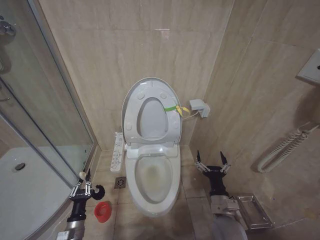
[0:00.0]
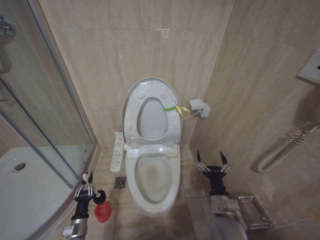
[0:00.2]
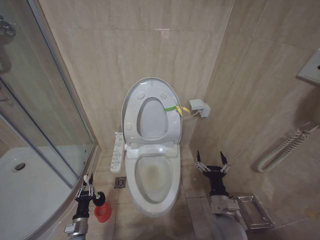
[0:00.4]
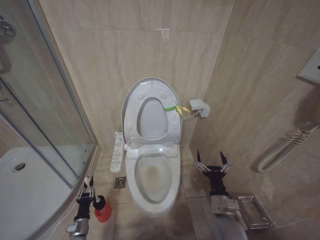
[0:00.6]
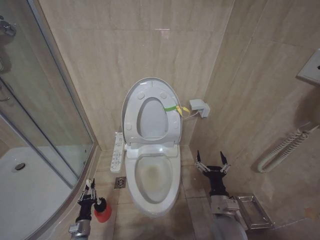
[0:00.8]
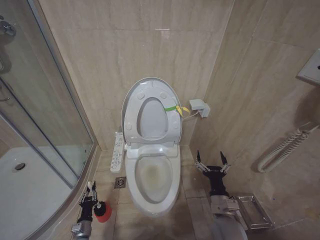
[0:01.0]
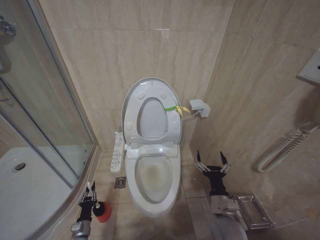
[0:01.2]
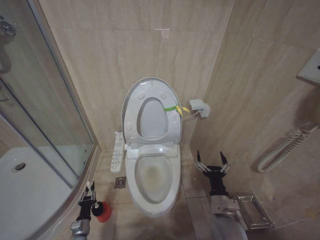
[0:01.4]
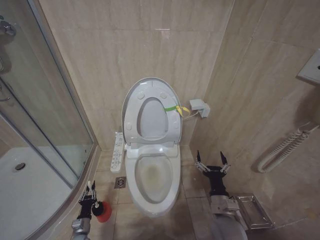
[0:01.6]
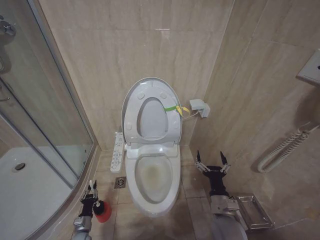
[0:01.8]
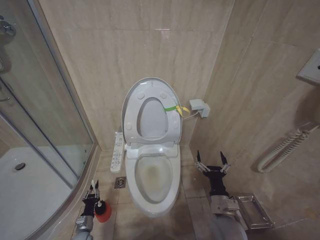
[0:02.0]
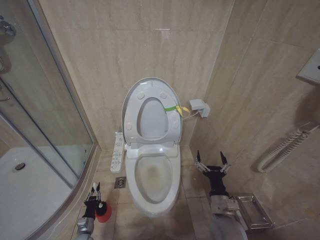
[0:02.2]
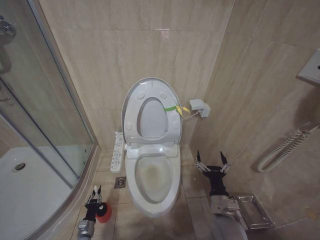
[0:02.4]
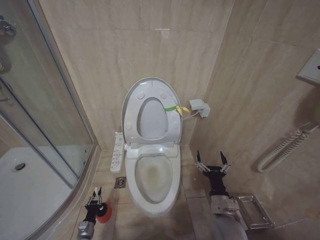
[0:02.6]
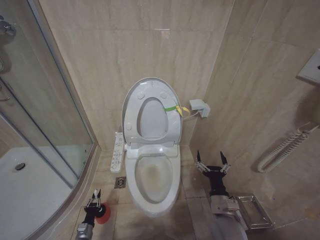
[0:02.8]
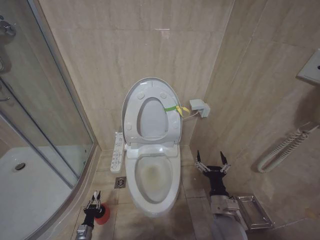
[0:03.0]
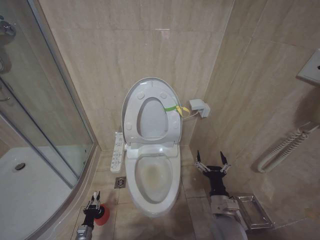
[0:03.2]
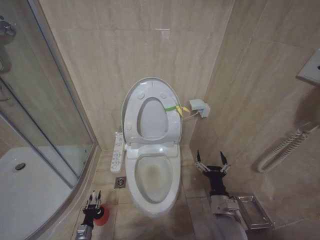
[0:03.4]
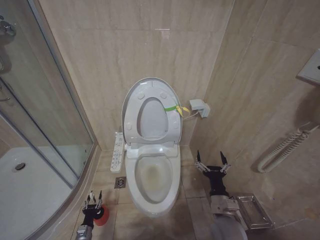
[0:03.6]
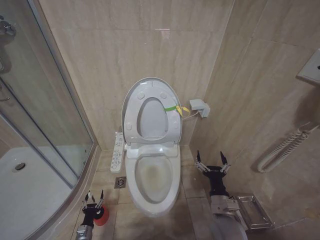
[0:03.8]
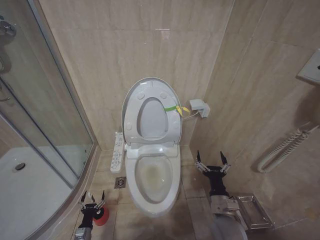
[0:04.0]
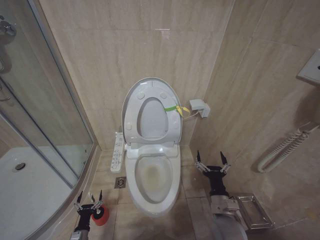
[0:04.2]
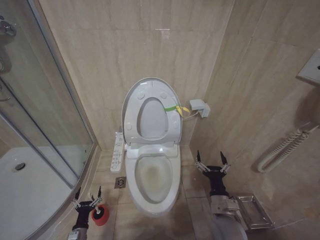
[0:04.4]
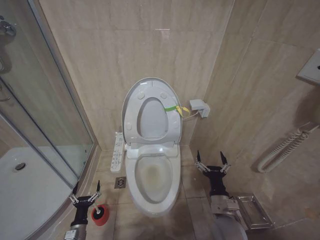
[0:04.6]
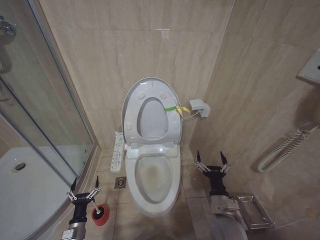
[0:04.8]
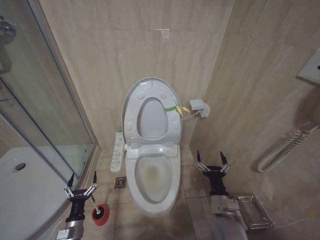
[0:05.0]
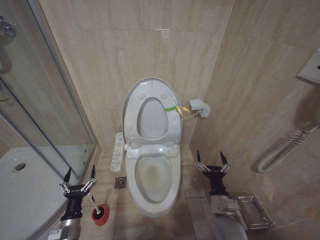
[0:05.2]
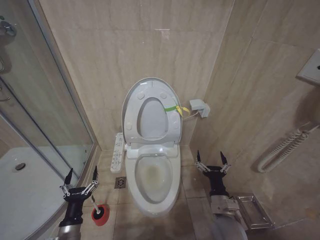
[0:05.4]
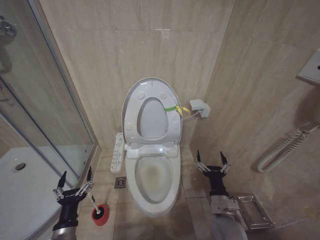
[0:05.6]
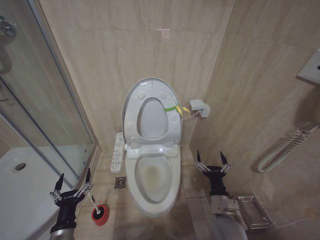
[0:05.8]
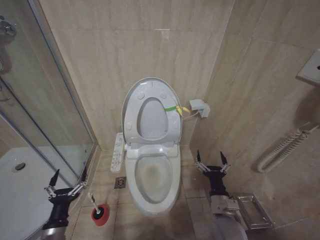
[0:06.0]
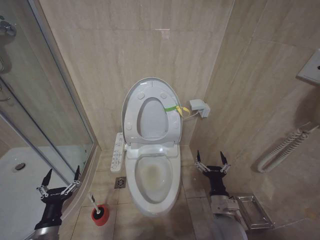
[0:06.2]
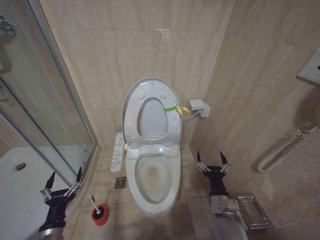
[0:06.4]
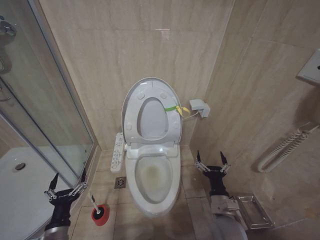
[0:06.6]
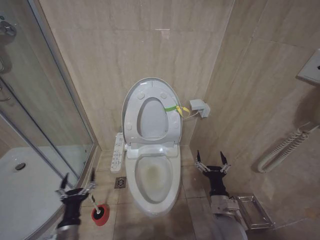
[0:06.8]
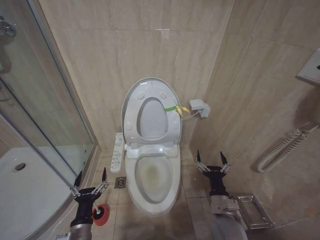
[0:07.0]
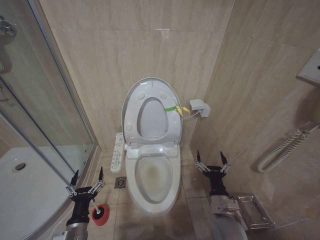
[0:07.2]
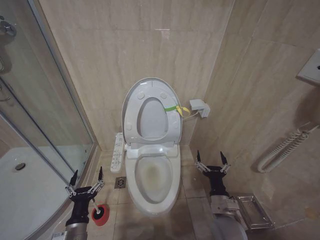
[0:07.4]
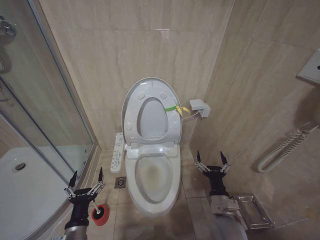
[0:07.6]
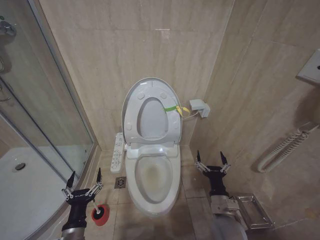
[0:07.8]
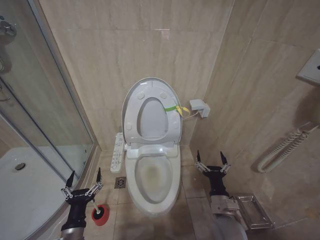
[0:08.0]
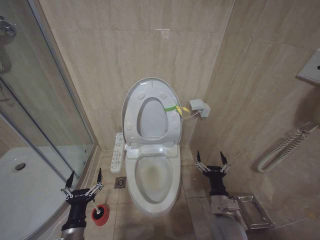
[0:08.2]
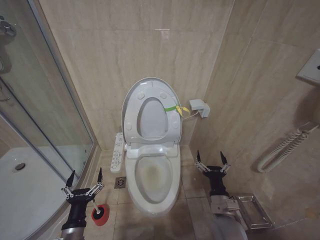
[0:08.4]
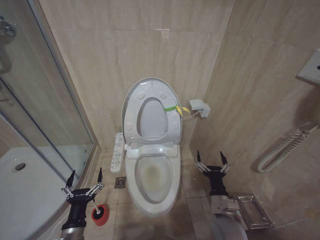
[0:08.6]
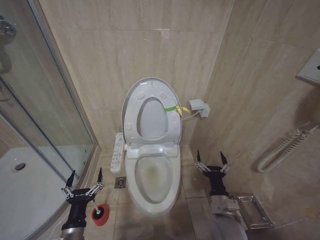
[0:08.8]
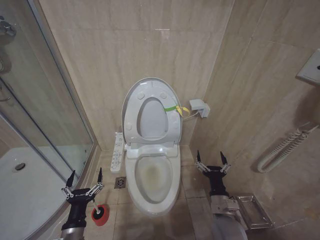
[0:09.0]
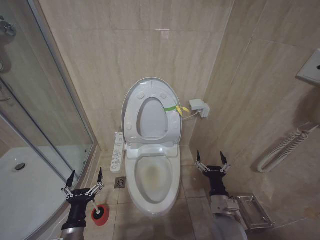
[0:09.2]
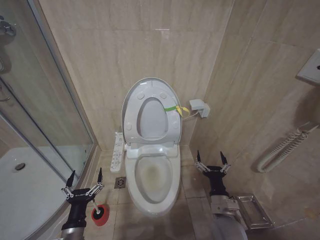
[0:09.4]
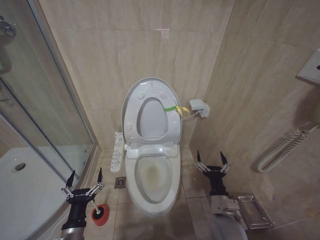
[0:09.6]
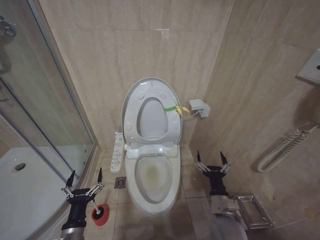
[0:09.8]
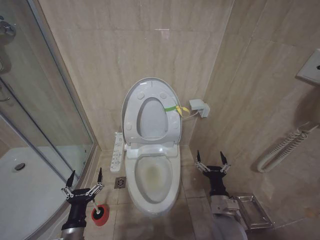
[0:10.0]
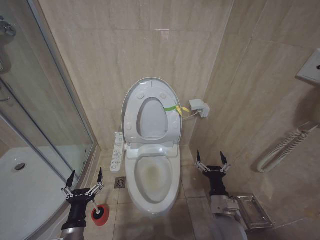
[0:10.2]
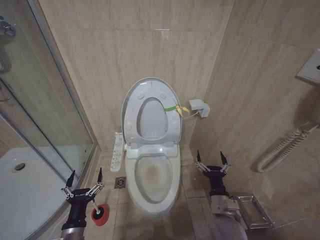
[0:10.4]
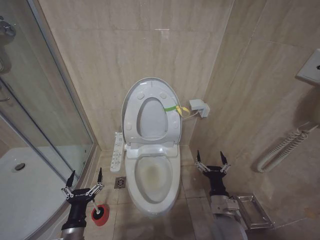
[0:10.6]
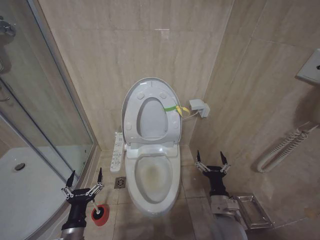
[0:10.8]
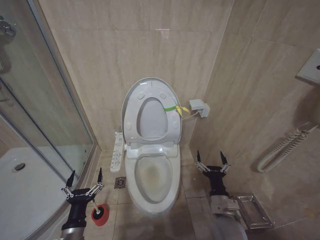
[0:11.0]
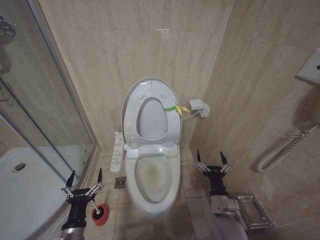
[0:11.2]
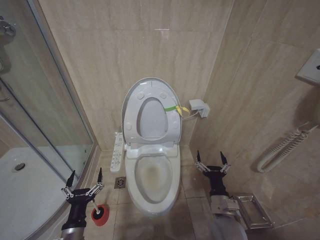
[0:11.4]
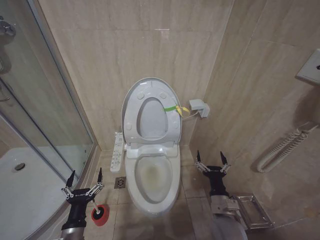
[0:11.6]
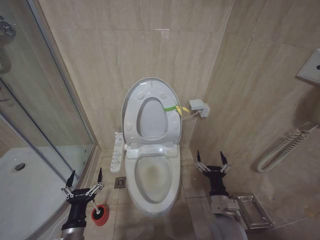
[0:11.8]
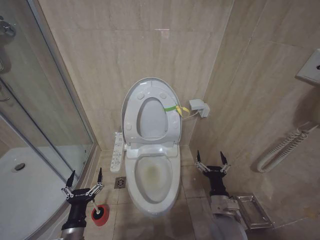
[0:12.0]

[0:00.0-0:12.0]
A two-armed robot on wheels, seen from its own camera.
Task of the whole recording: Open the toilet lid, clean the toilet bowl with a toilet brush, close the toilet lid, and flush.
0:00.0 to 0:01.6: The left gripper travels downward by approximately 15 cm.
0:01.6 to 0:03.0: The grippers make only small movements.
0:03.0 to 0:04.4: The left gripper ends up some 5 cm from where it was, and opens.
0:04.4 to 0:06.0: The left gripper is displaced upward by approximately 25 cm.
0:06.0 to 0:07.6: The left gripper is displaced to the right by approximately 5 cm.
0:07.6 to 0:12.0: Both grippers stay about where they are.

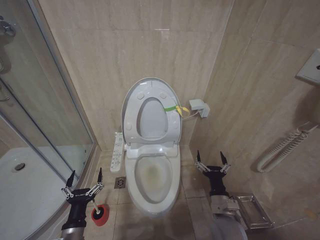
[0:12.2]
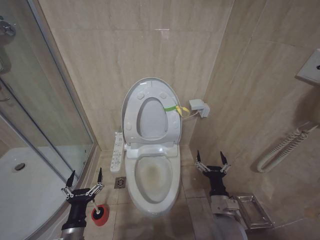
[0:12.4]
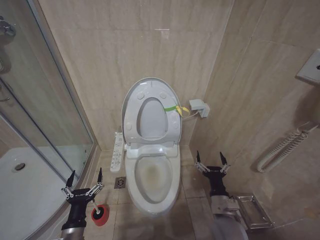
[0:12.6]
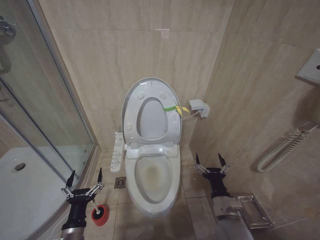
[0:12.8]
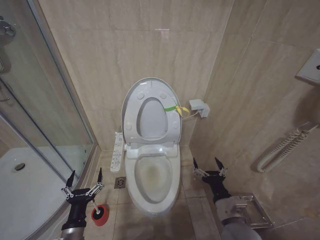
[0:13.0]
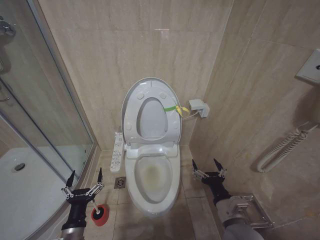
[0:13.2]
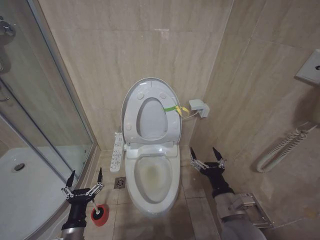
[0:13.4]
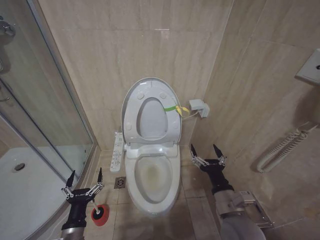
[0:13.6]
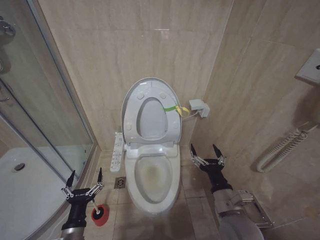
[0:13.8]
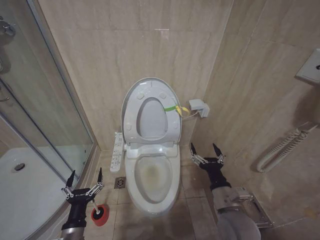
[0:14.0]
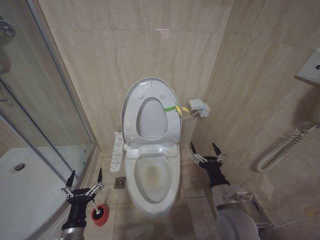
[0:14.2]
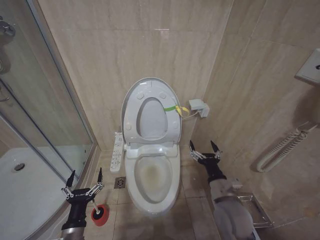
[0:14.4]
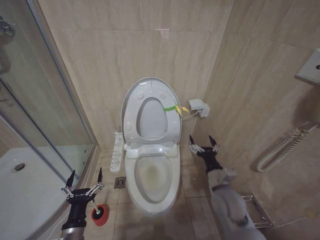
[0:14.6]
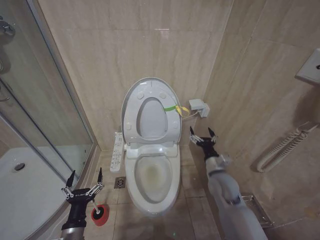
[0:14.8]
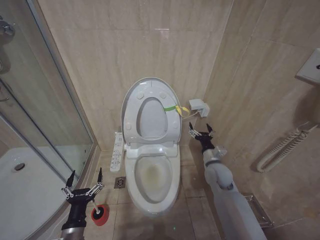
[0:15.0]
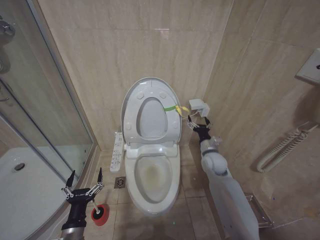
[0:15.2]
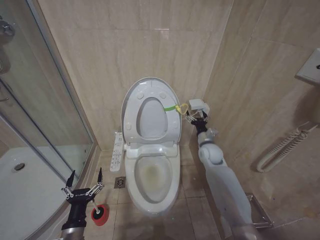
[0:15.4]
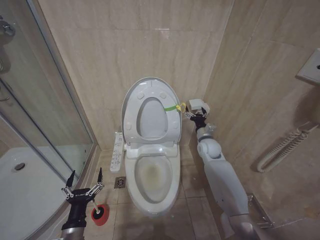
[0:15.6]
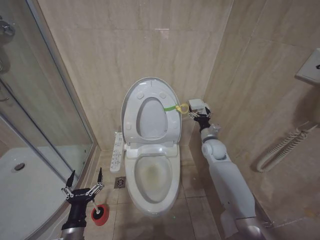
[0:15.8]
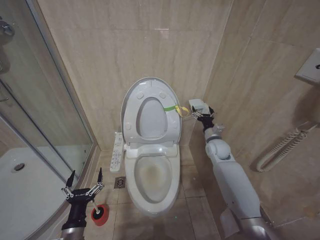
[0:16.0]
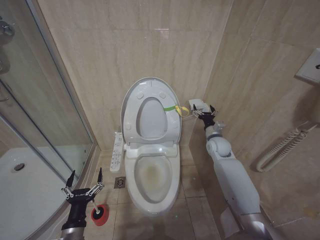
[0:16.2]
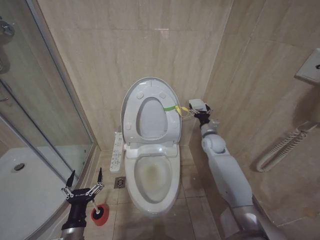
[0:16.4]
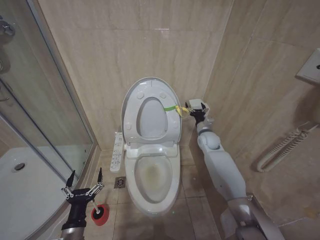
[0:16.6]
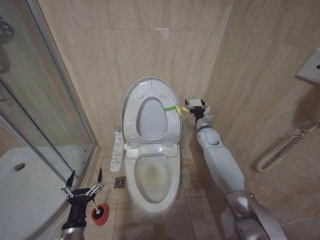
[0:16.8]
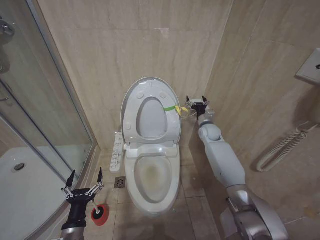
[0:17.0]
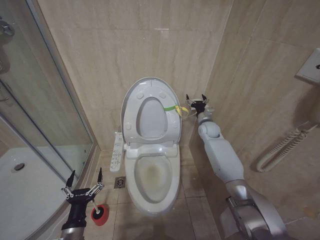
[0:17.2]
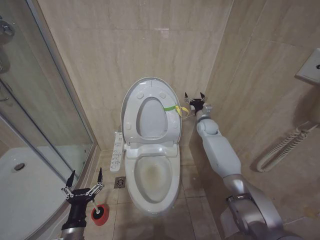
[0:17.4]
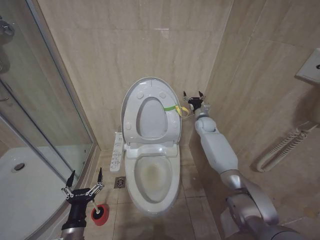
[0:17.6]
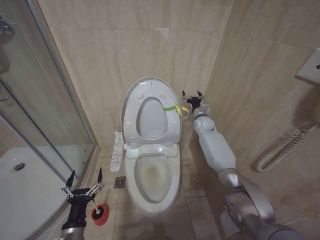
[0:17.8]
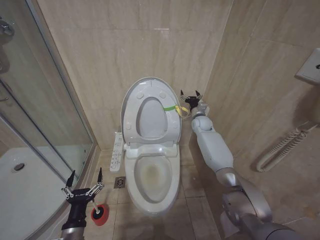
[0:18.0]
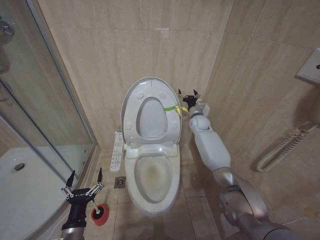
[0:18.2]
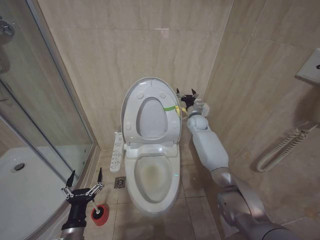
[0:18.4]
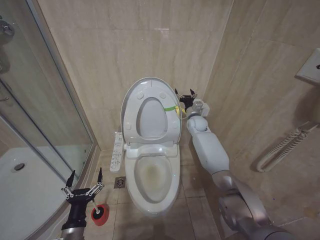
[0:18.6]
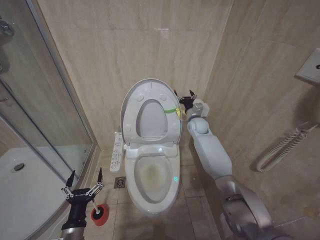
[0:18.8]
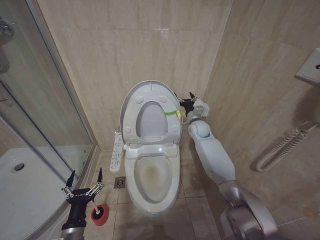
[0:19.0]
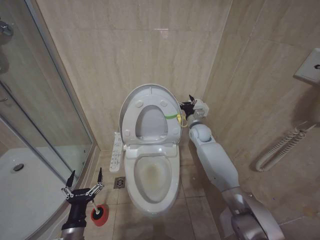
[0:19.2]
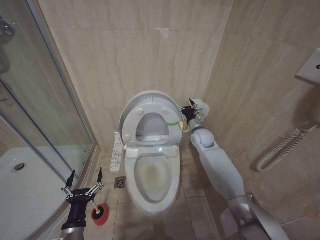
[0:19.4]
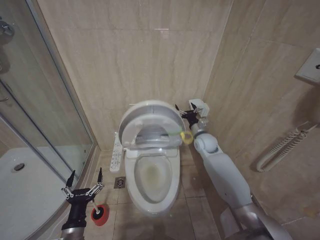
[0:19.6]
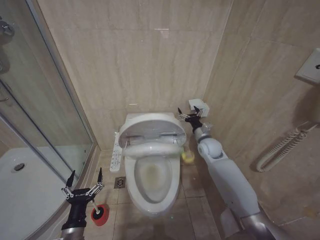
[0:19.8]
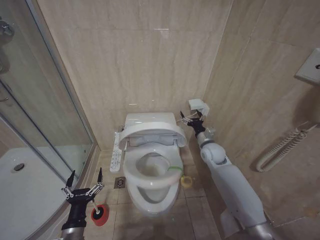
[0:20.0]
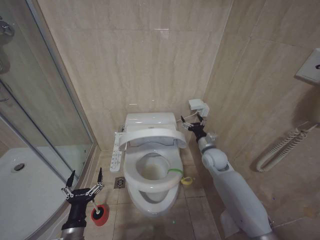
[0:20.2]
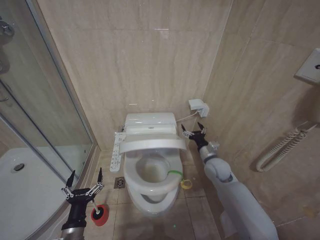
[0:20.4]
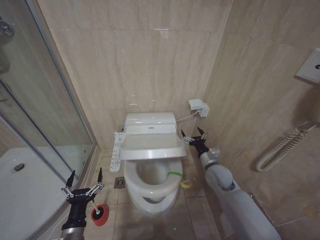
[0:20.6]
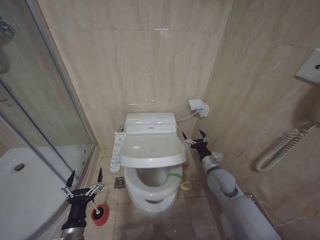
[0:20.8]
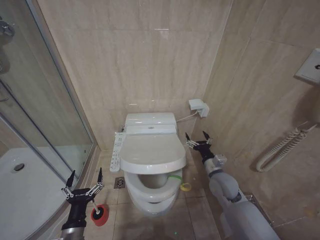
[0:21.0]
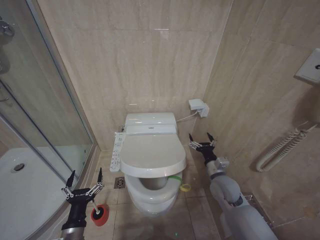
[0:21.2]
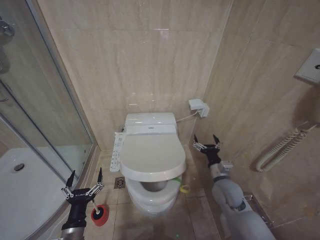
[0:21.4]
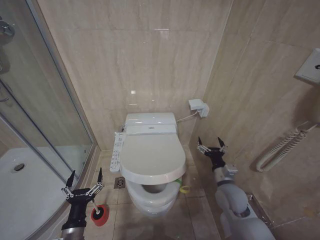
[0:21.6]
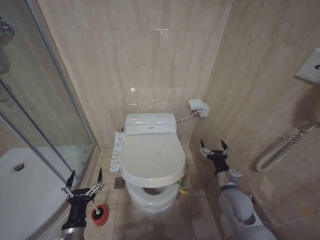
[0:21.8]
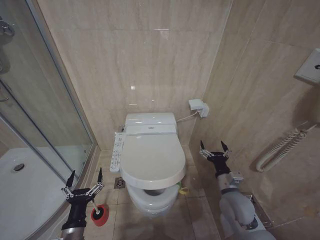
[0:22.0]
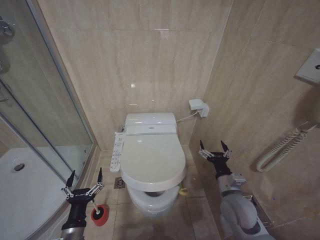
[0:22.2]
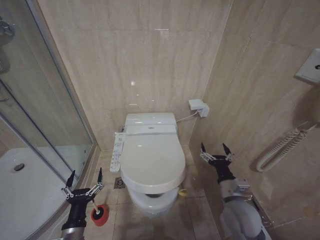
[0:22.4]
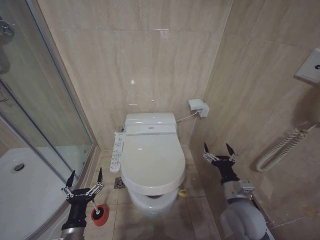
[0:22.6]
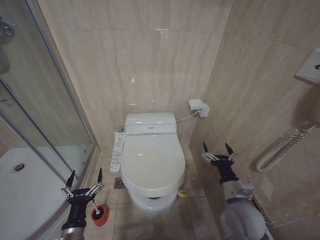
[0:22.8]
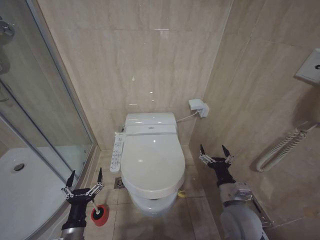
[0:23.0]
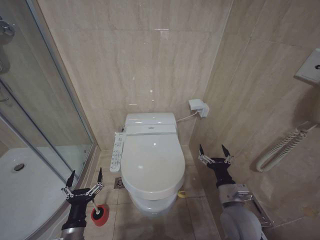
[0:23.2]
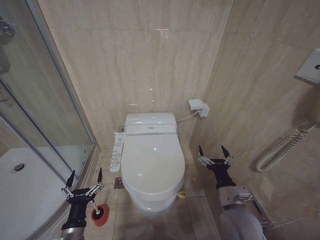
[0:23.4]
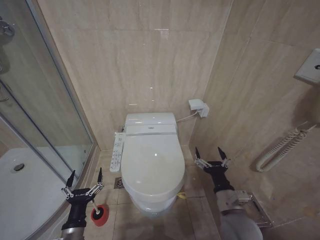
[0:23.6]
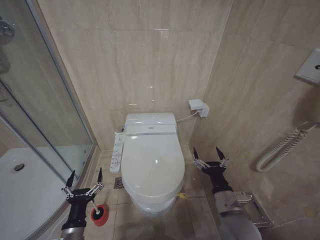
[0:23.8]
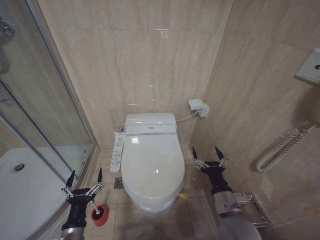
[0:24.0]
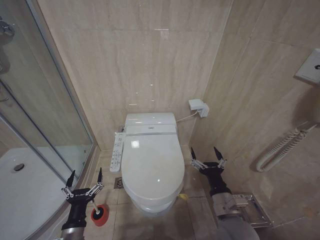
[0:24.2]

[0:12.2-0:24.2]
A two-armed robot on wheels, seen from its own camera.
Task of the whole recording: Open the toilet lid, clean the toilet bowl with a toilet brush, close the toilet lid, and flush.
0:12.2 to 0:13.8: The right gripper shifts some 10 cm upward.
0:13.8 to 0:15.2: The right gripper travels forward by approximately 20 cm.
0:15.2 to 0:16.6: The right gripper shifts approximately 10 cm forward.
0:16.6 to 0:18.2: The right gripper travels forward by roughly 10 cm.
0:18.2 to 0:19.8: The right gripper heads backward, covering approximately 10 cm.
0:19.8 to 0:21.2: The right gripper heads backward and downward, covering roughly 15 cm.
0:21.2 to 0:22.6: The right gripper goes approximately 10 cm backward.
0:22.6 to 0:24.2: The right gripper goes some 5 cm to the left.
